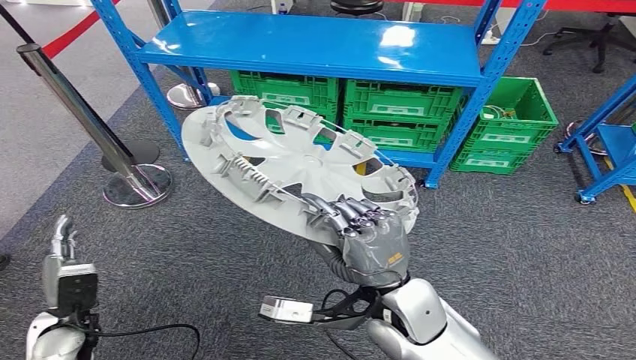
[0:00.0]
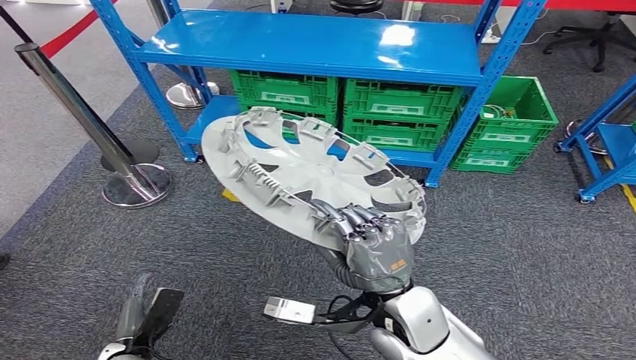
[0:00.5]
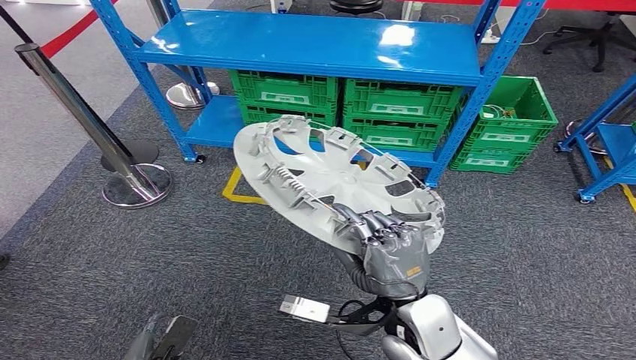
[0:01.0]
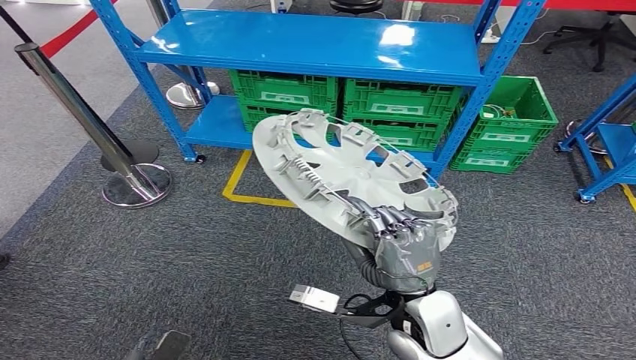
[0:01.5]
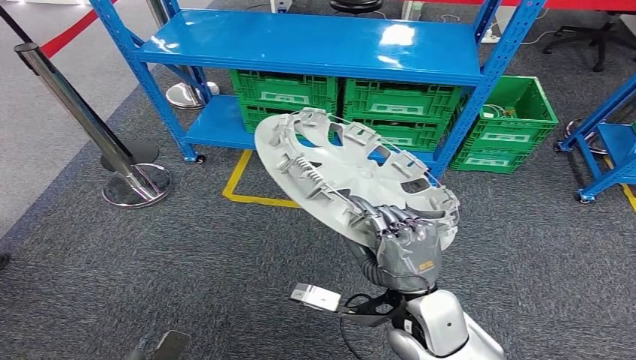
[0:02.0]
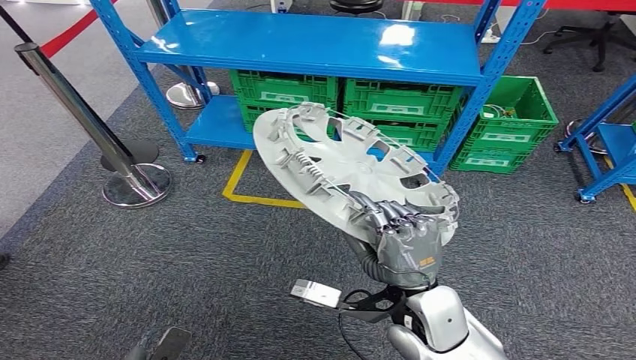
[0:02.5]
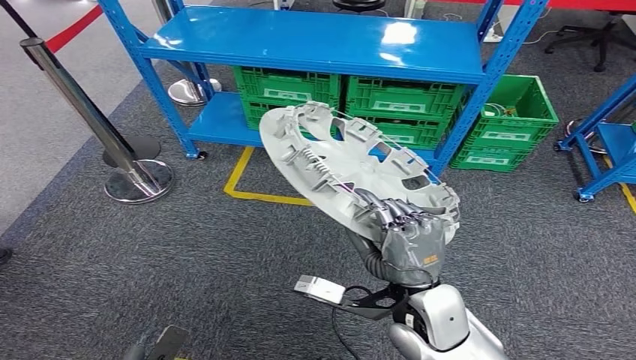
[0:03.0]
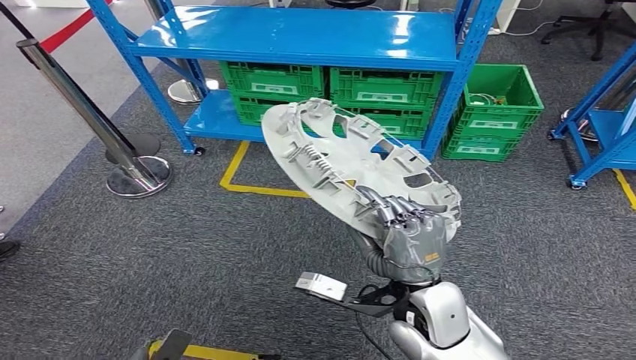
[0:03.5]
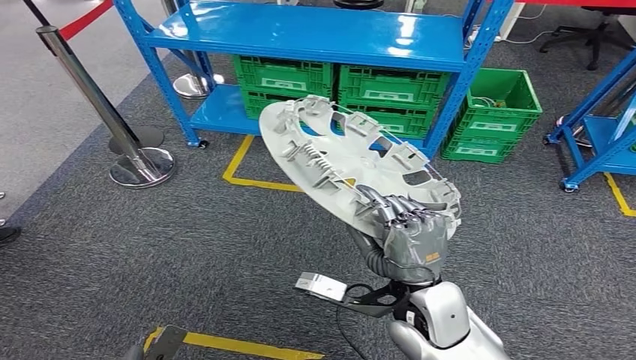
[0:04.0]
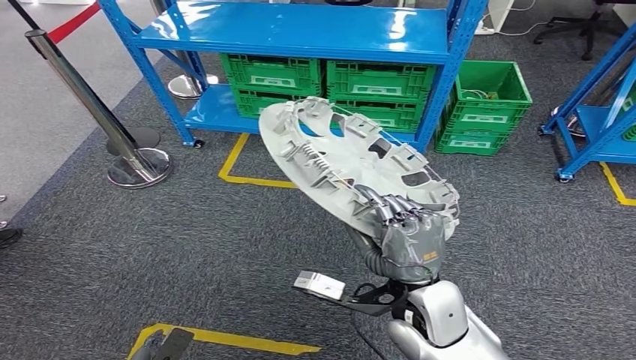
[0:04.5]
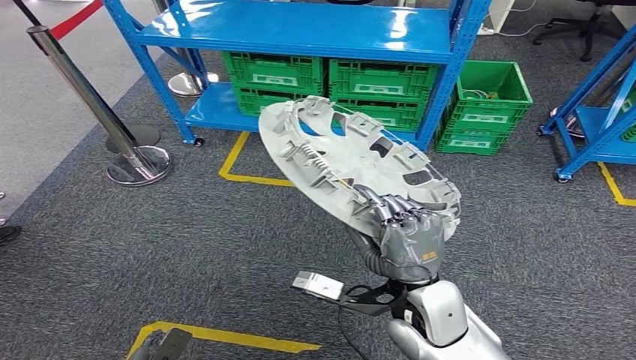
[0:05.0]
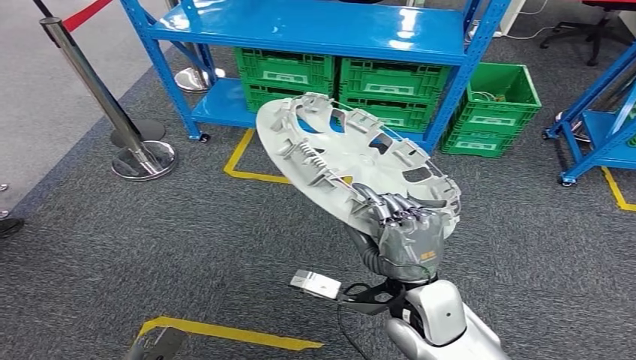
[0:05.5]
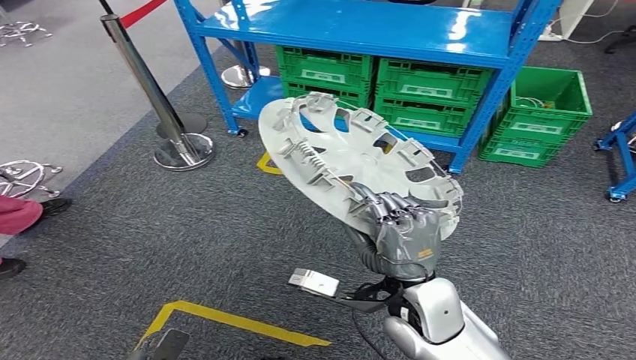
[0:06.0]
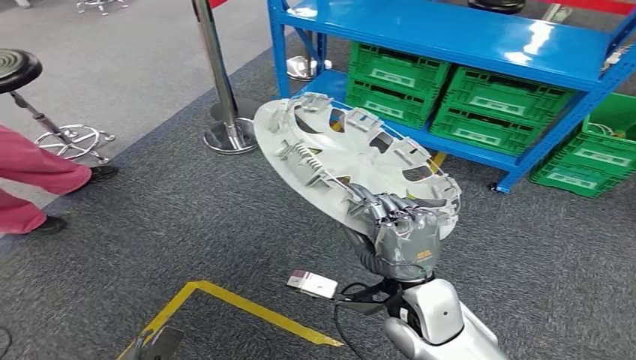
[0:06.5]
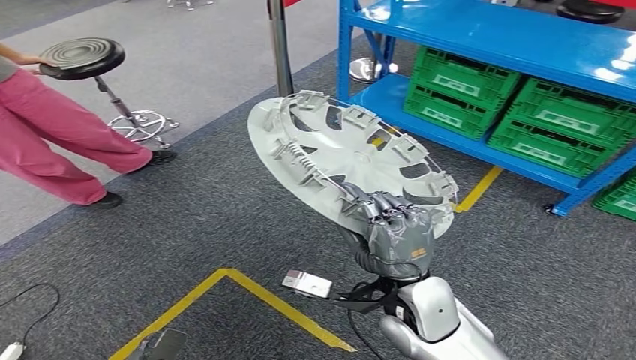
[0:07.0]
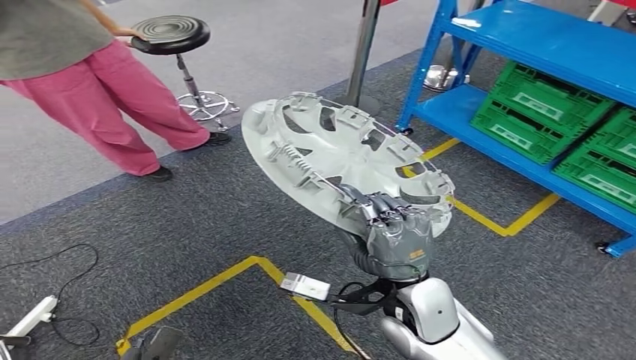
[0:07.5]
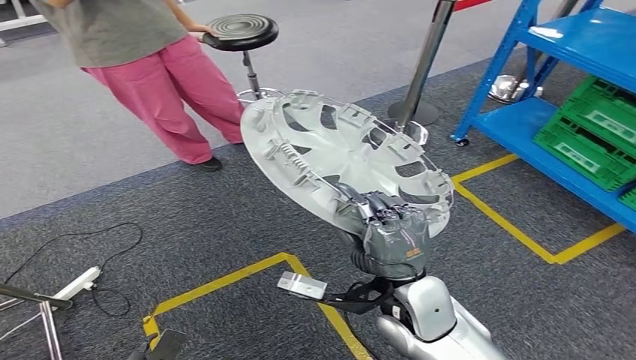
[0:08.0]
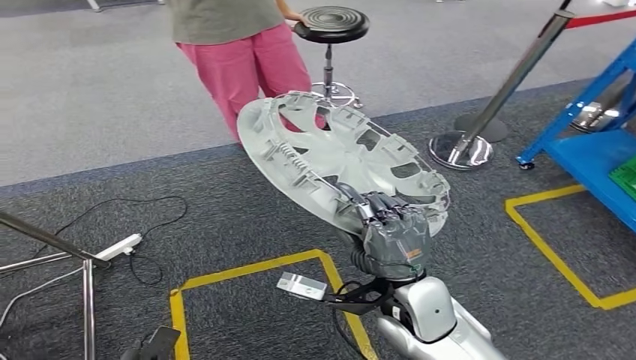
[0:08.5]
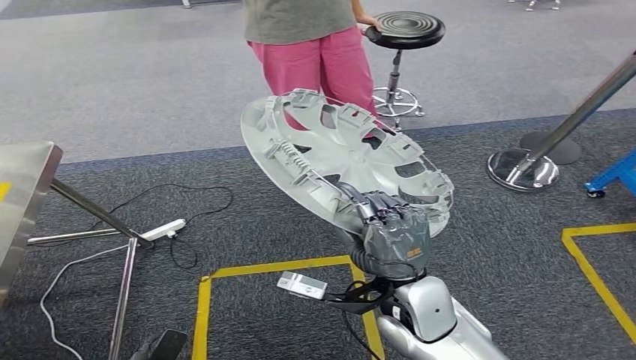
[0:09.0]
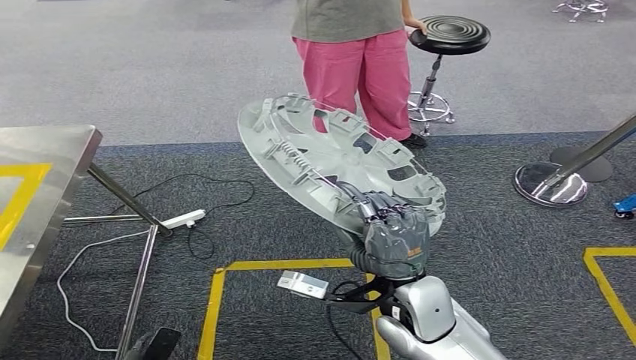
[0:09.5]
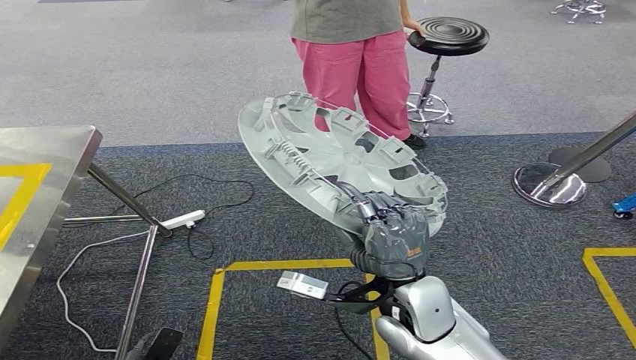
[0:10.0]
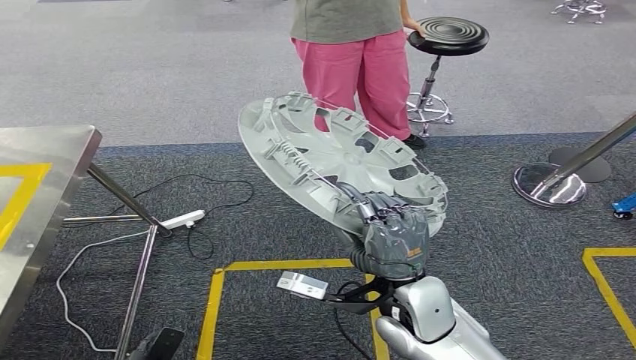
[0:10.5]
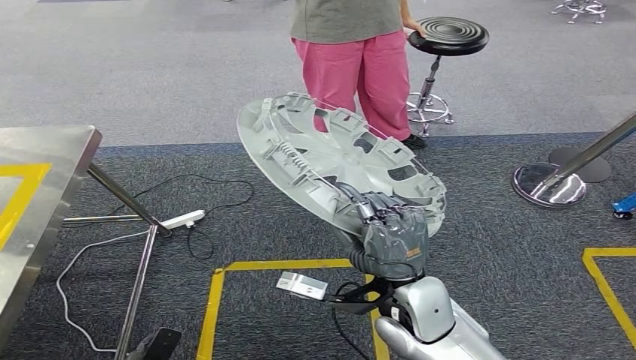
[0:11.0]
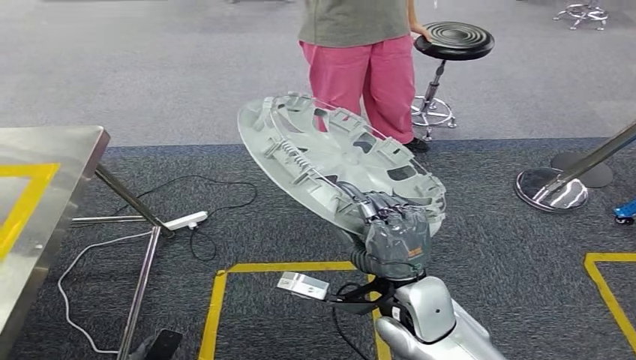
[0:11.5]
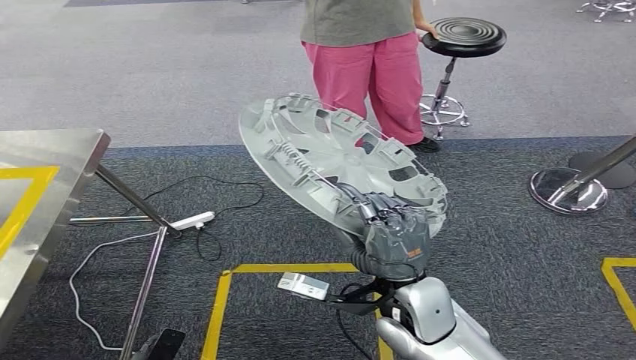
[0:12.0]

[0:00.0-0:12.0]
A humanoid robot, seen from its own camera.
0:10.0 to 0:12.0: Both hands stay about where they are.

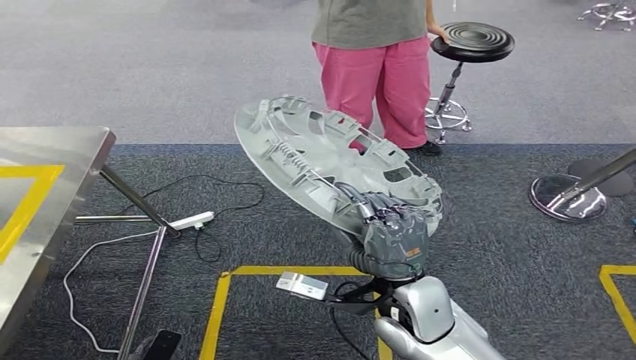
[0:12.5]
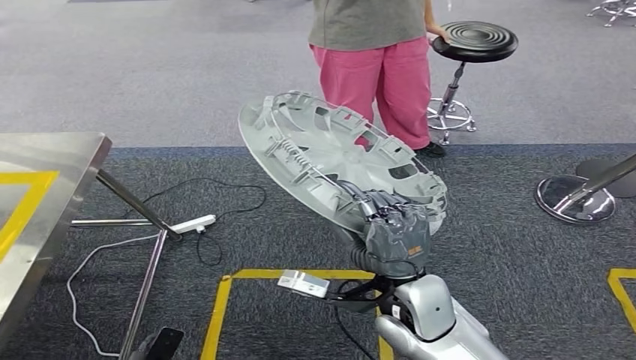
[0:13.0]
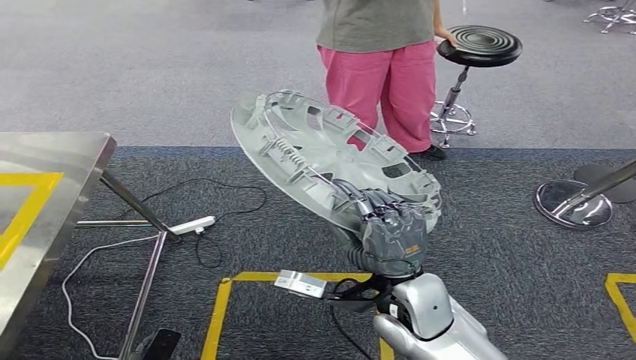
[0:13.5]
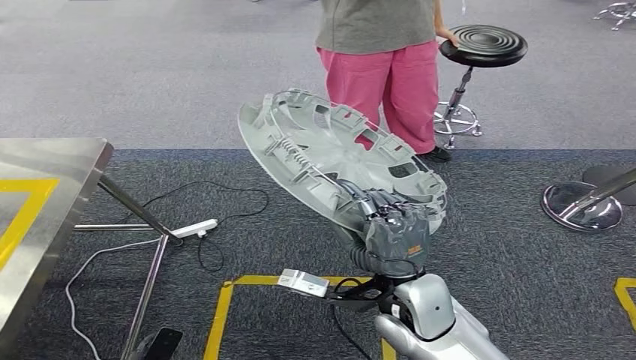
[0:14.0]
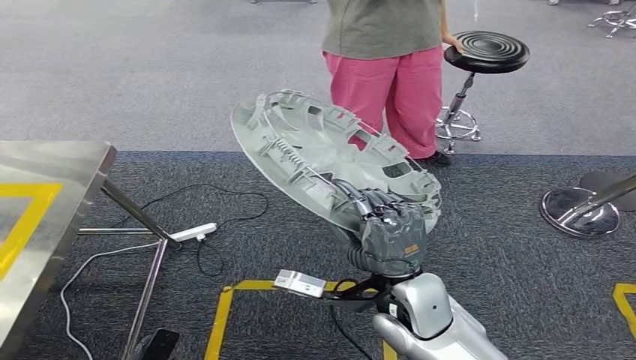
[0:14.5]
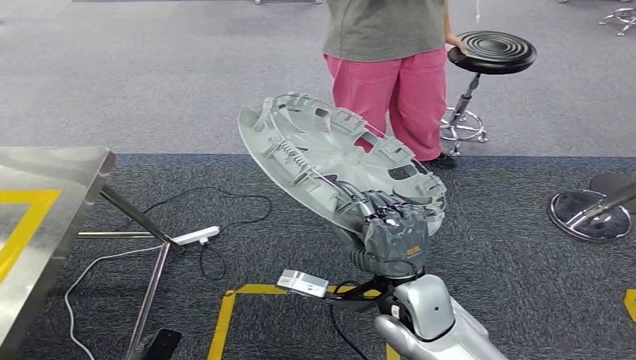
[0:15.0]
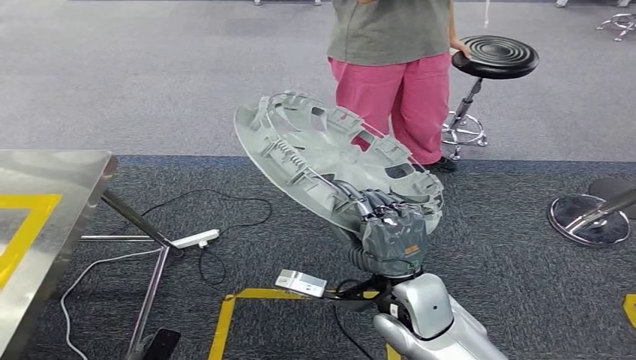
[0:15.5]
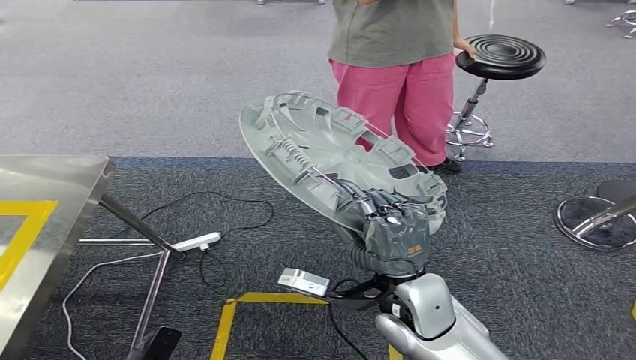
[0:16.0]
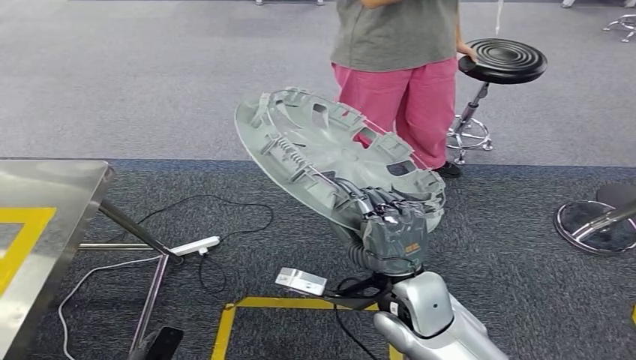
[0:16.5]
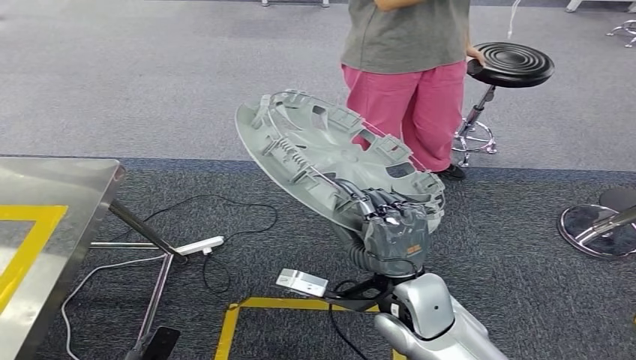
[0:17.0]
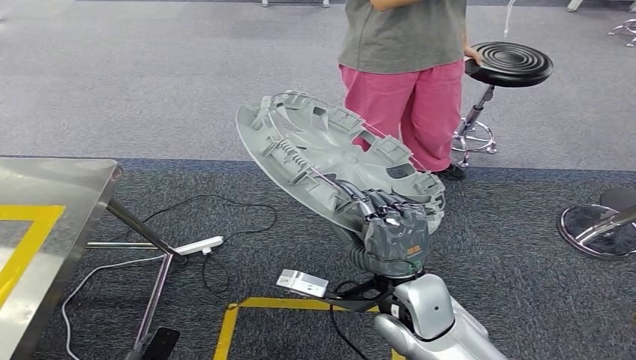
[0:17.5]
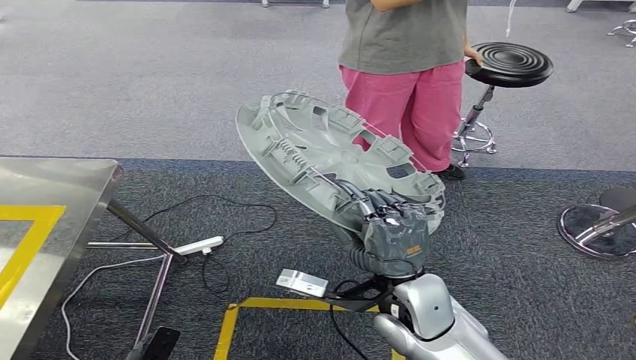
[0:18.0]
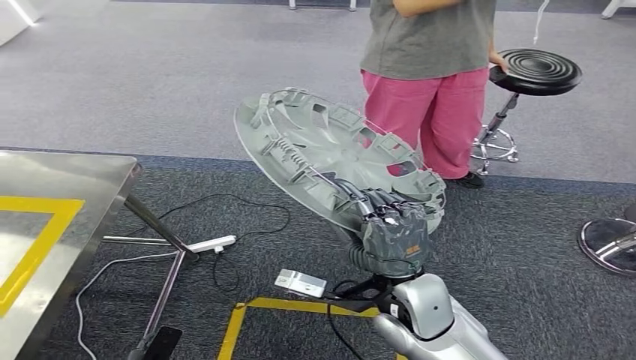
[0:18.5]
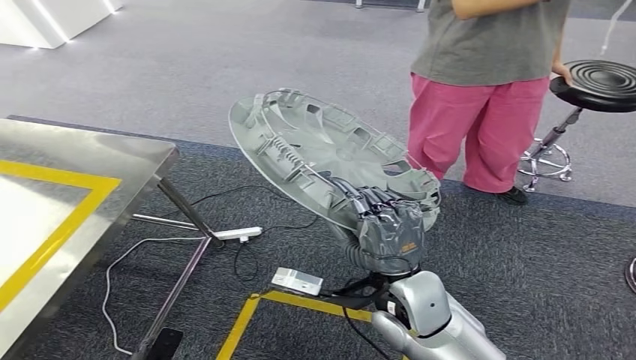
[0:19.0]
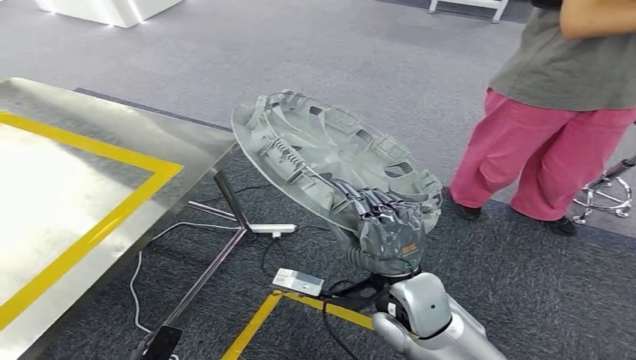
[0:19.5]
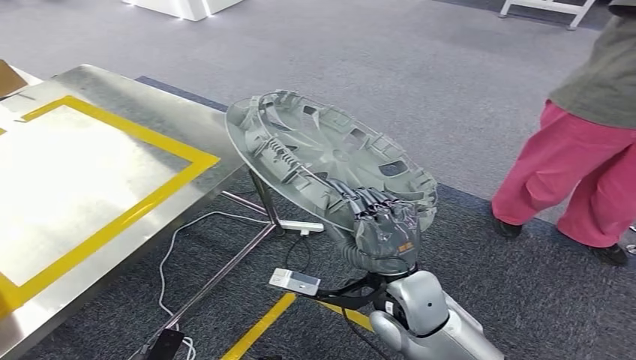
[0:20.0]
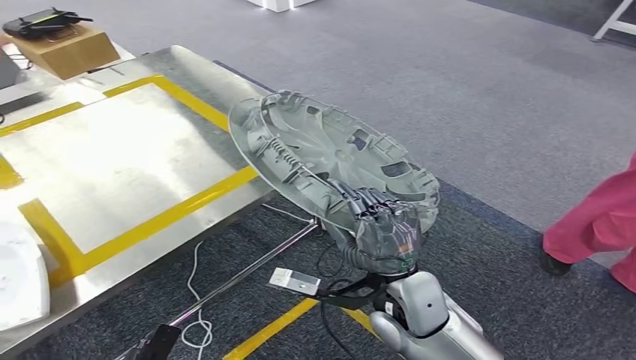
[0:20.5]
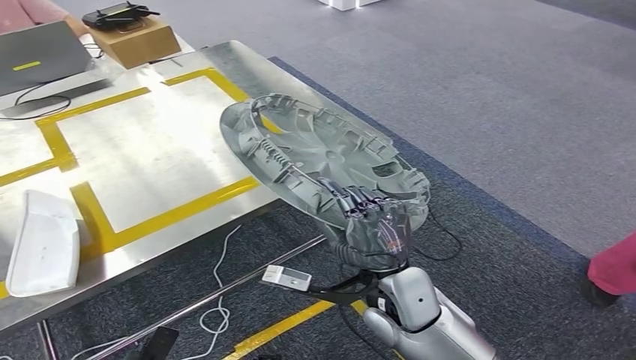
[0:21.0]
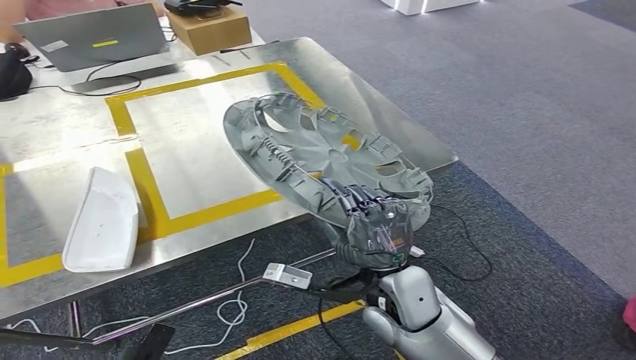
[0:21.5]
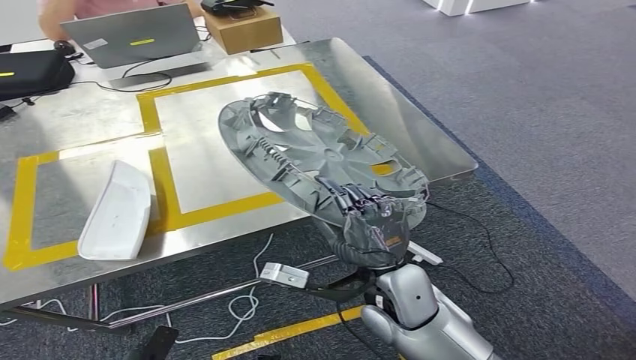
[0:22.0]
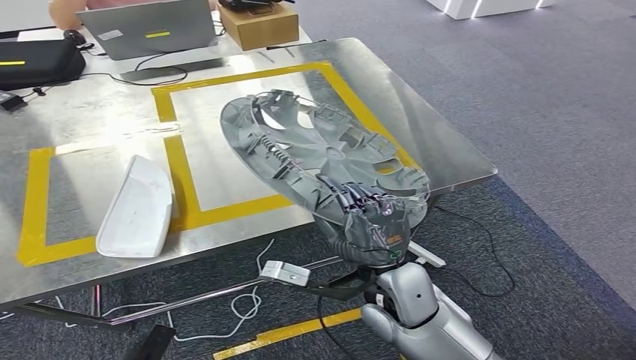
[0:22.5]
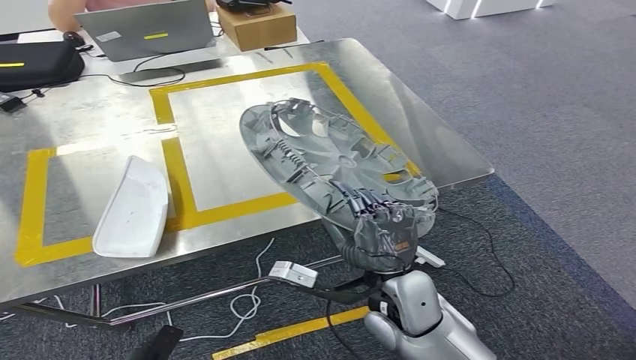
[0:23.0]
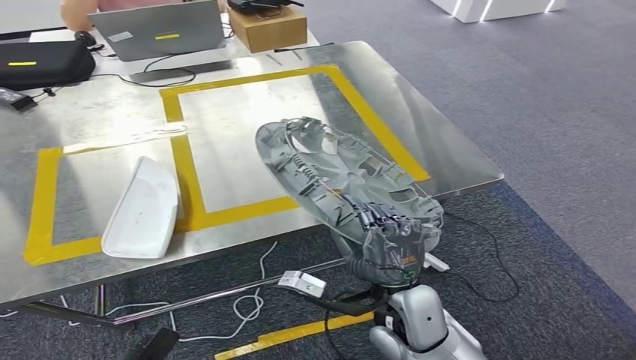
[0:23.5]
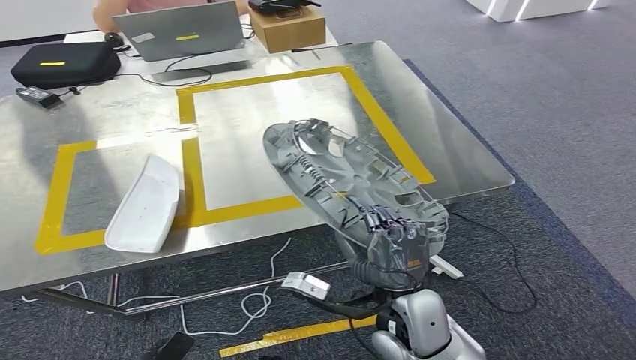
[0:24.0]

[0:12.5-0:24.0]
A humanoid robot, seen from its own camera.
Step, 0:12.5 to 0:19.0: Move the small component to the workbench.
0:12.5 to 0:16.5: Both hands stay put.
